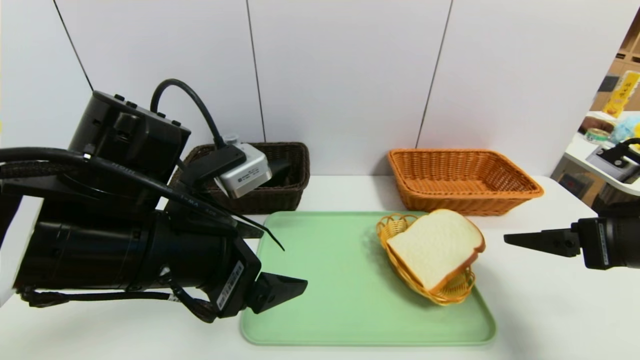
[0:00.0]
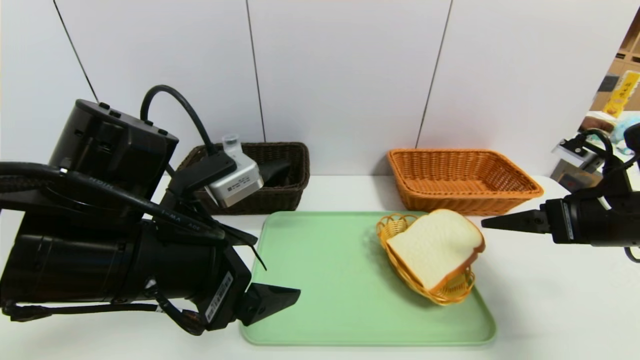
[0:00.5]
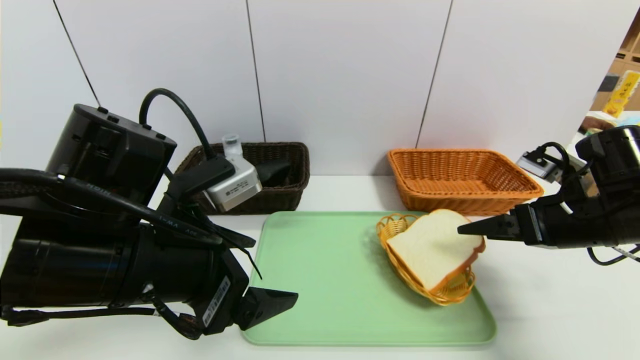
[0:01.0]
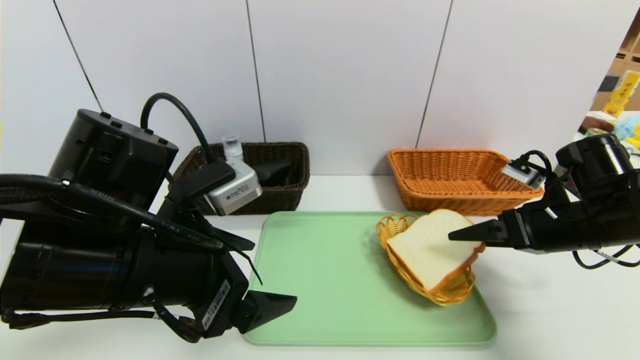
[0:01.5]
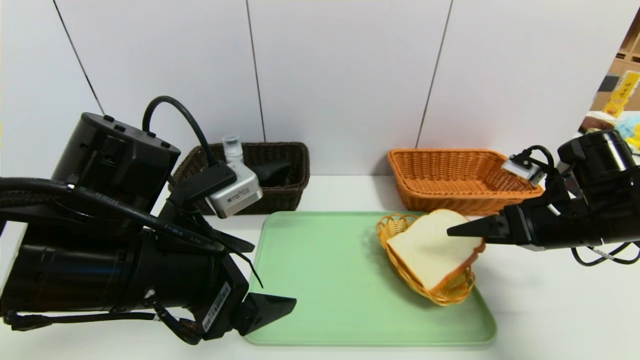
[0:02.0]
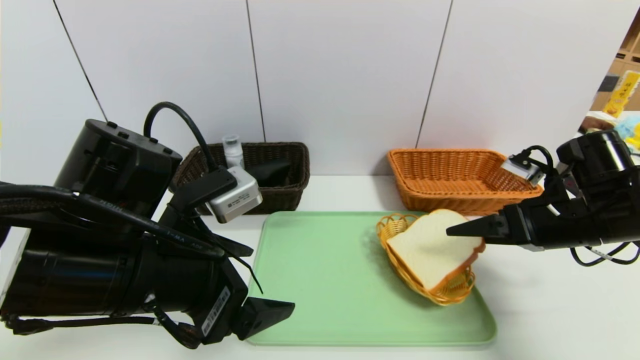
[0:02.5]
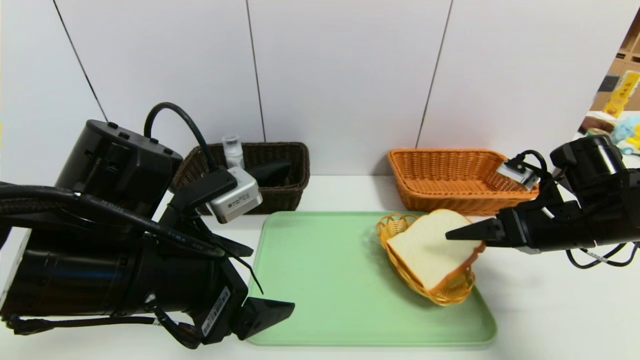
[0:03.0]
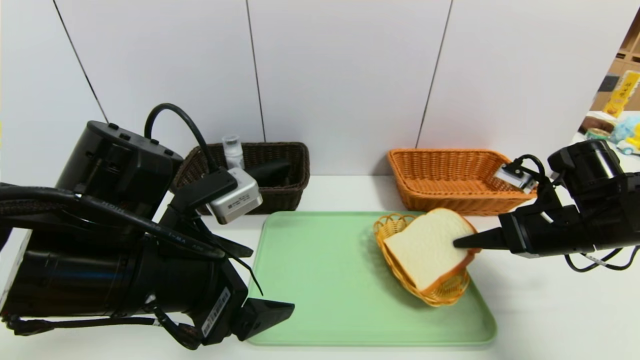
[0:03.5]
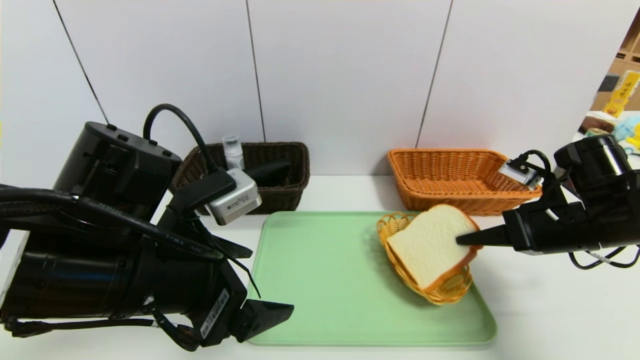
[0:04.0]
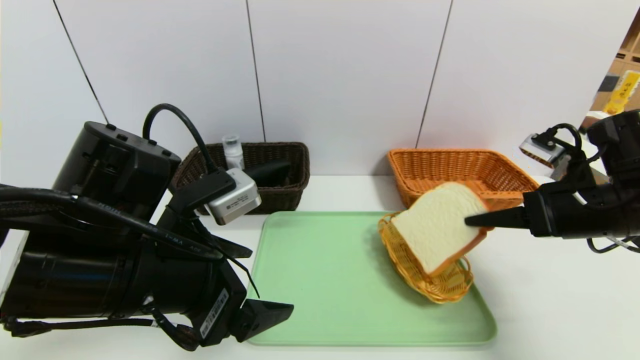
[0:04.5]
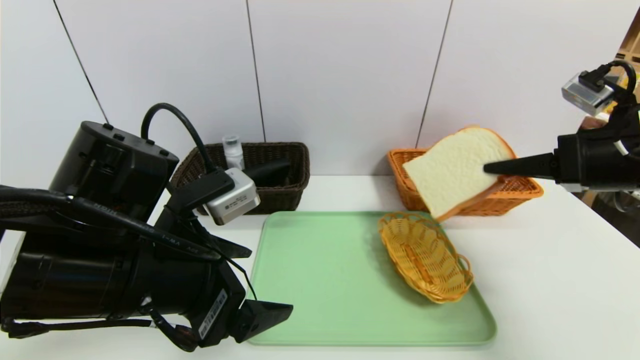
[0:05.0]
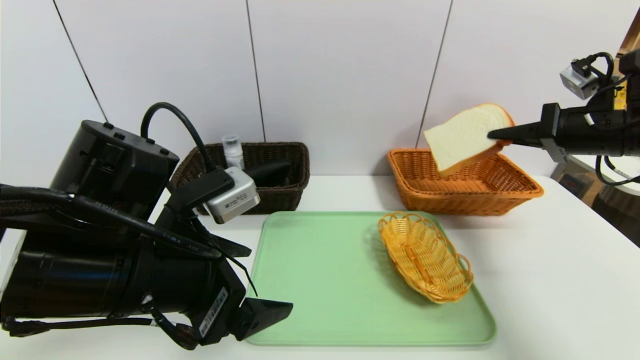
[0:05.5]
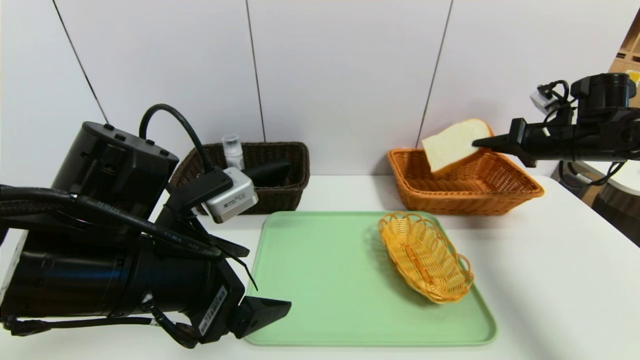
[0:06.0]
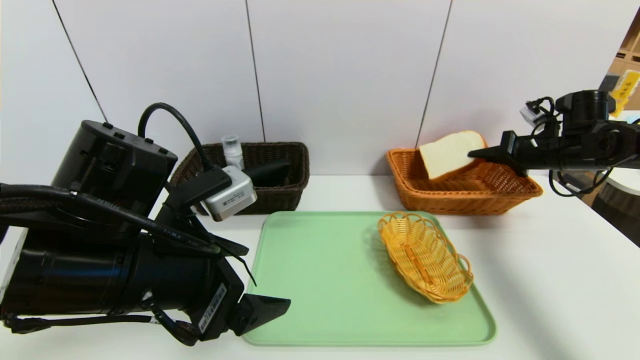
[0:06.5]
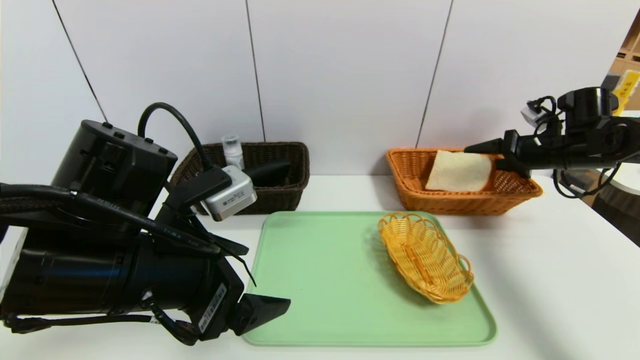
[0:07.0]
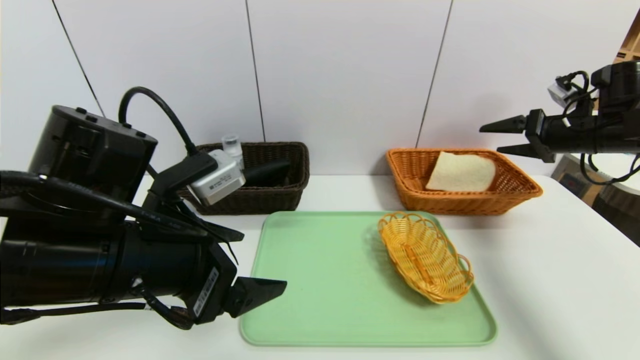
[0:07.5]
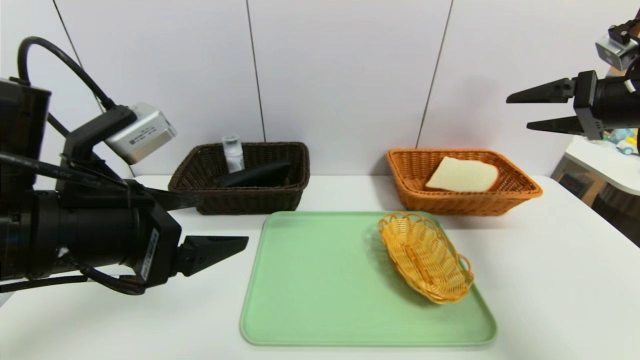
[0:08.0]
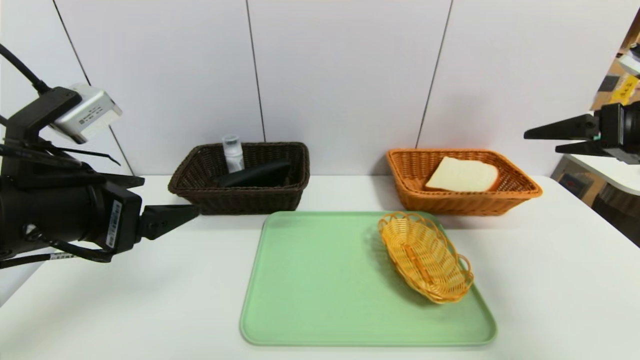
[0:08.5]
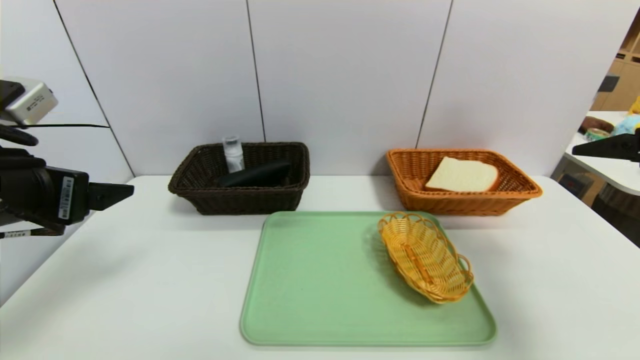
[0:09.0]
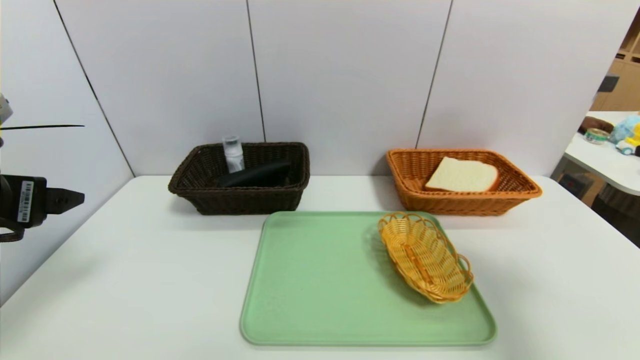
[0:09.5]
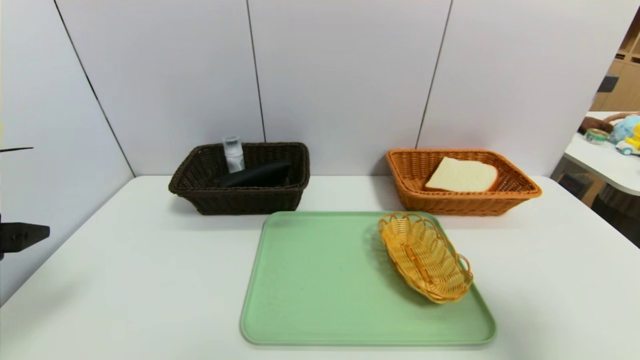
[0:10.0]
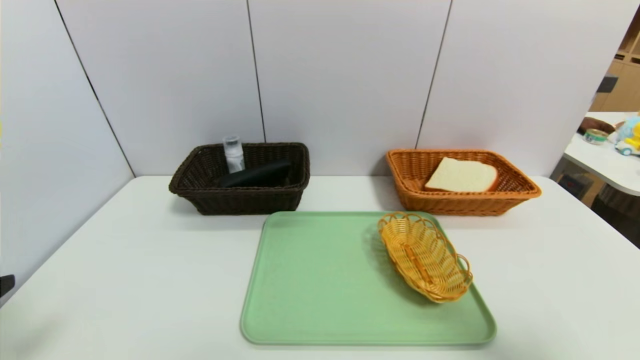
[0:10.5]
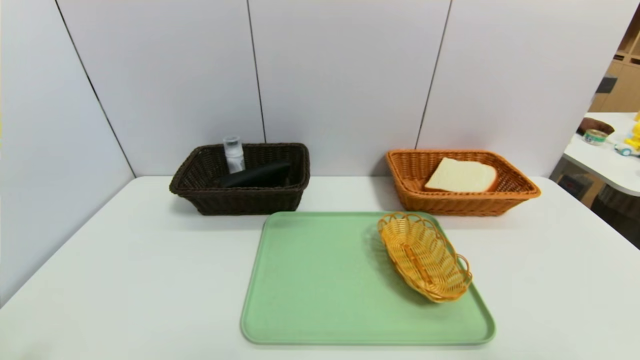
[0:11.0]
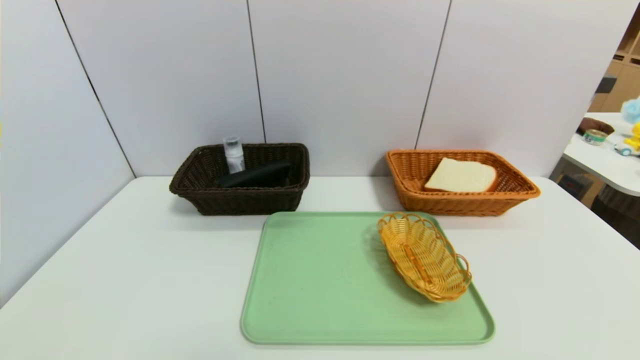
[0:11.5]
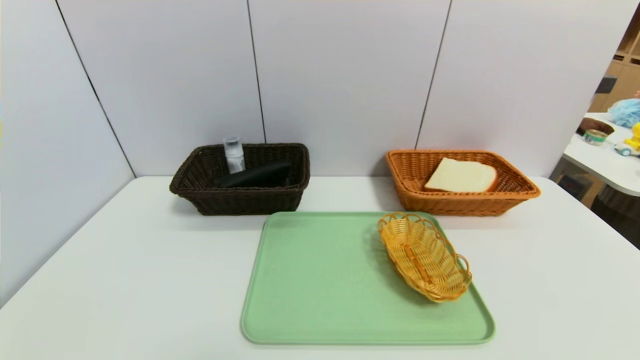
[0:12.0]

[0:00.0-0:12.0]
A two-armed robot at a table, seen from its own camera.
Task of the whole recording: place the food in the right basket with the right gripper, and place the non food items in the left basket with the left gripper.
Step, 0:00.0 to 0:07.5: Grasp the bread slice and put it in the right basket.
0:00.0 to 0:02.0: The right gripper goes roughly 5 cm forward.
0:02.0 to 0:04.0: The right gripper closes.
0:04.0 to 0:06.0: The right gripper goes approximately 15 cm forward and to the right.
0:06.0 to 0:08.0: The left gripper shifts by roughly 5 cm, while the right gripper is displaced backward and upward by roughly 15 cm, and opens its fingers.
0:08.0 to 0:10.0: The right gripper moves backward, some 25 cm. Meanwhile the left gripper shifts approximately 10 cm to the left.
0:10.0 to 0:12.0: Both grippers travel together backward and downward, approximately 15 cm.
